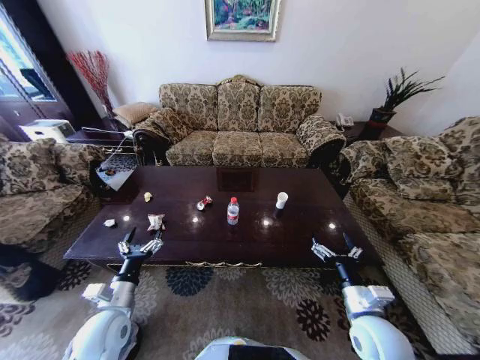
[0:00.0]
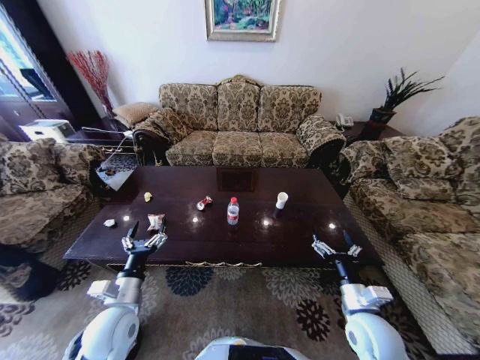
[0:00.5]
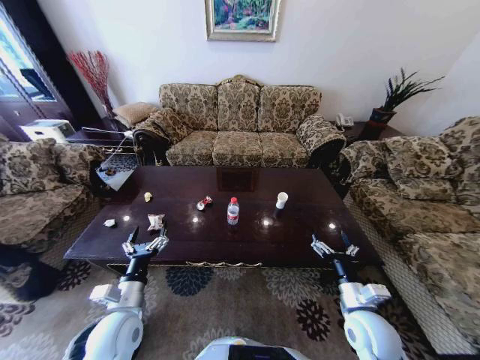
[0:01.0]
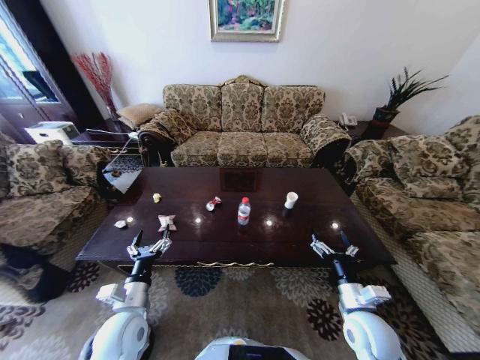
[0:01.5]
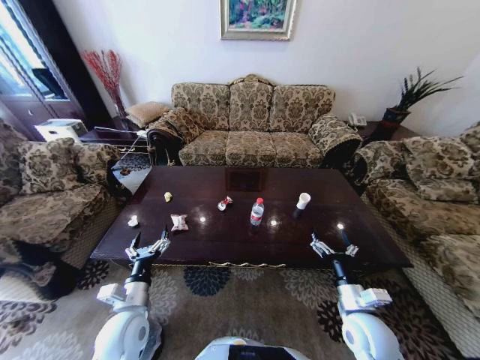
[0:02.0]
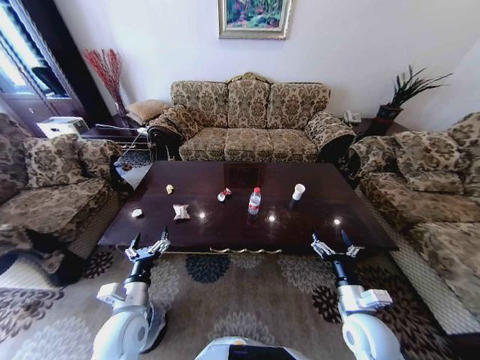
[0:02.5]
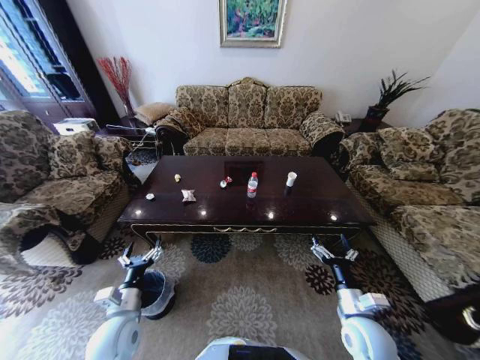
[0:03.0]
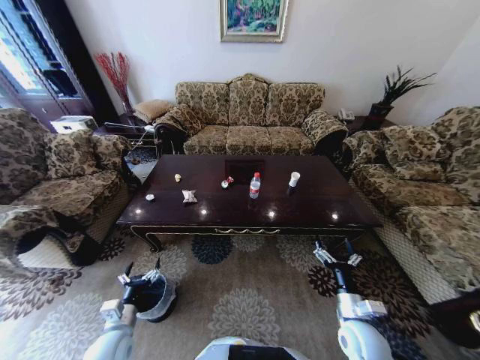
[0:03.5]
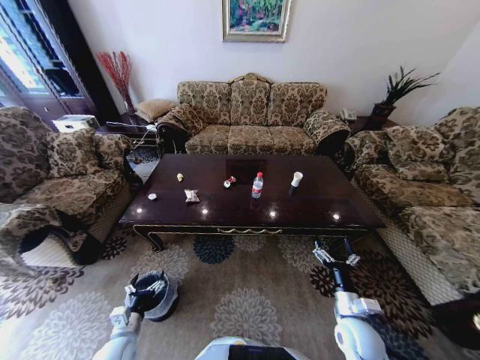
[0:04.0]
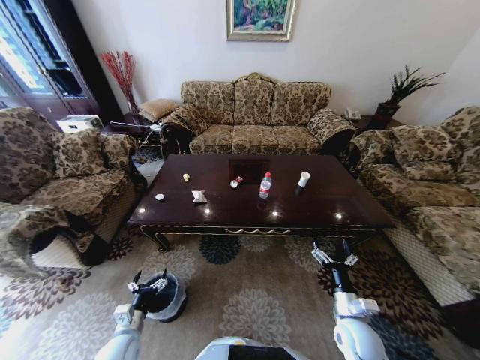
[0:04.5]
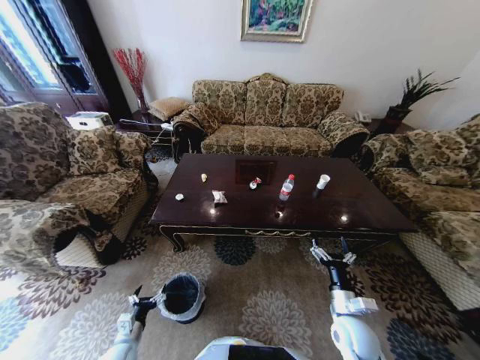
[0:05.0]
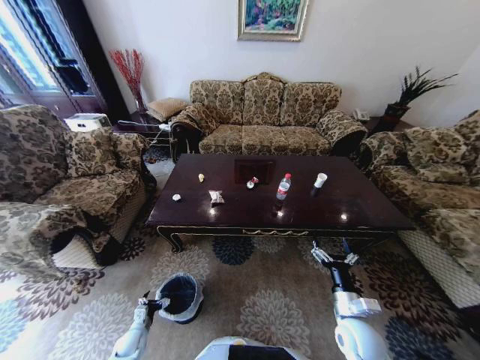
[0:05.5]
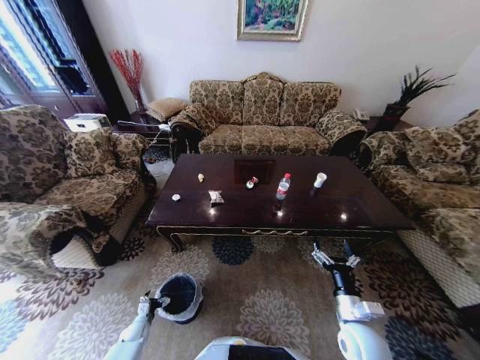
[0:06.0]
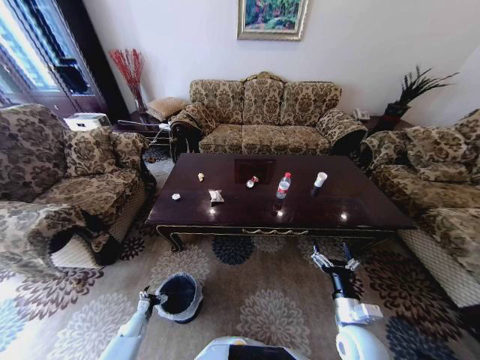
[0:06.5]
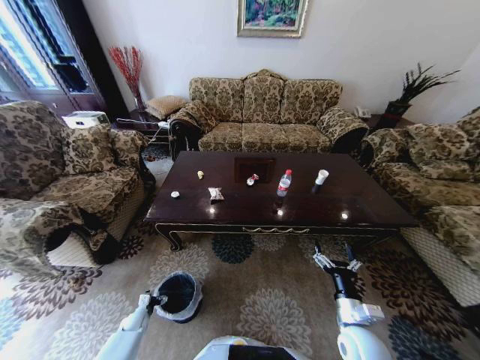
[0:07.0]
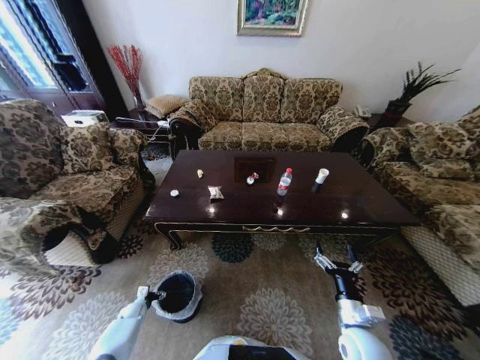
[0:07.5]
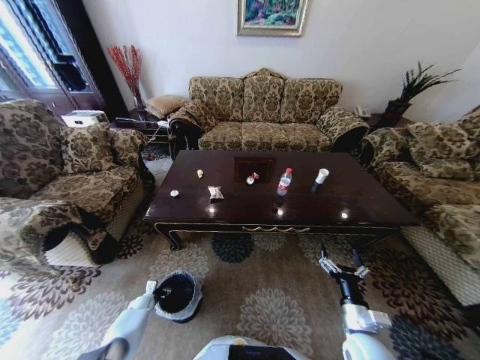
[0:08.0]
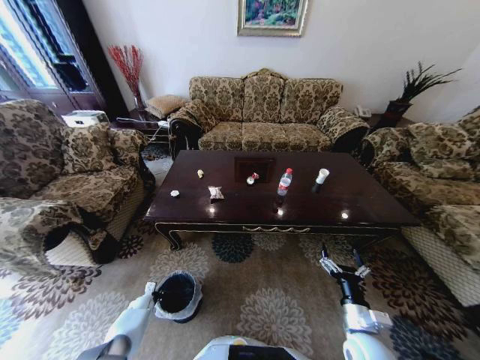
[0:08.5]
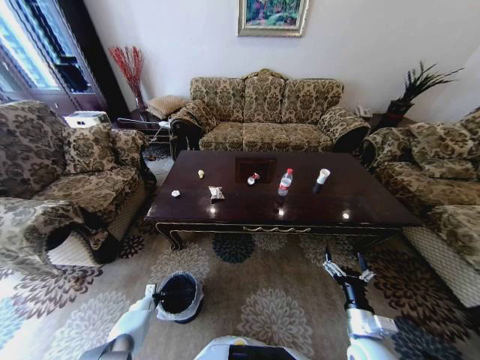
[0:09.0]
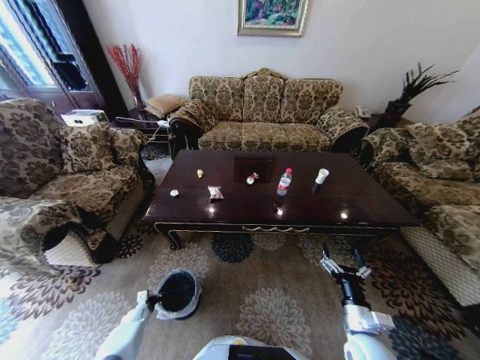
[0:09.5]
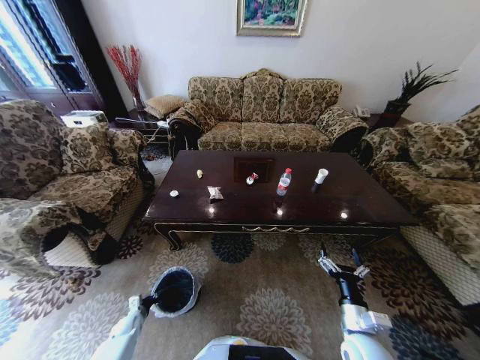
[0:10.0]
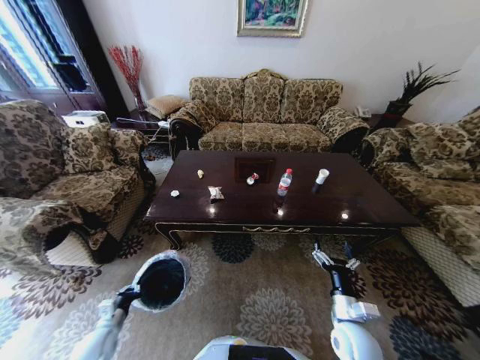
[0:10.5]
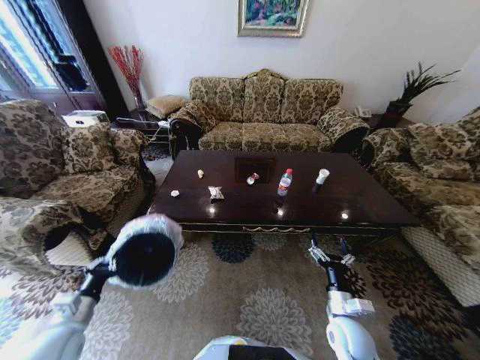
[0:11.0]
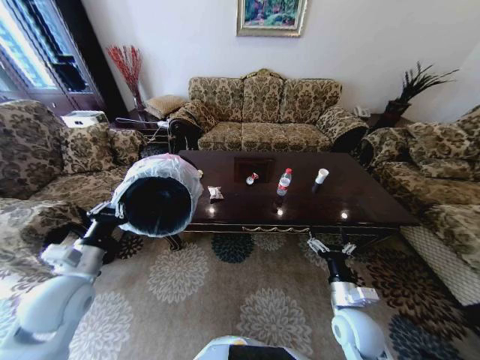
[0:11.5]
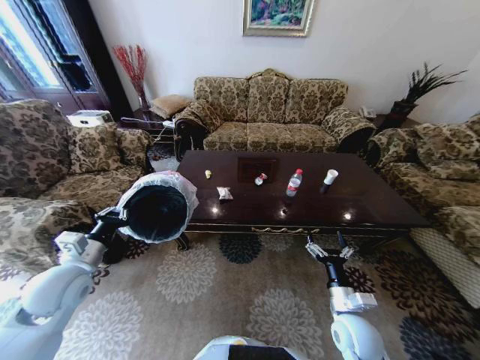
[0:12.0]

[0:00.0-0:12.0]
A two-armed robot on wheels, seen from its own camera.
Task of the whole recording: Move to the front of the table and place the trash on the table into the trash bin.
0:02.0 to 0:04.0: The right gripper travels downward by approximately 5 cm. Meanwhile the left gripper moves downward and to the left, about 15 cm.
0:04.0 to 0:06.0: The left gripper shifts some 20 cm downward.
0:06.0 to 0:08.0: The left gripper is displaced forward by about 10 cm.
0:08.0 to 0:10.0: The left gripper goes approximately 5 cm backward, and closes up.
0:10.0 to 0:12.0: The left gripper goes about 40 cm upward.

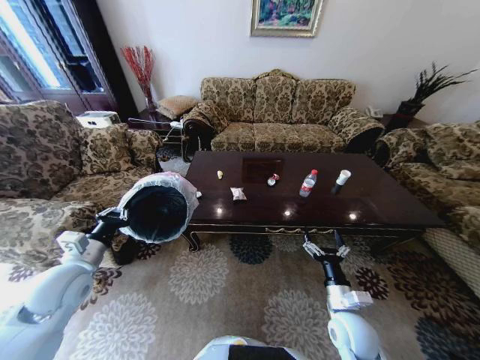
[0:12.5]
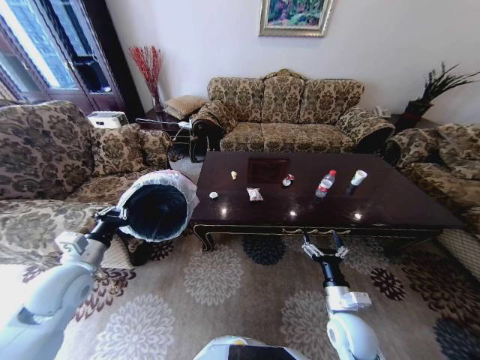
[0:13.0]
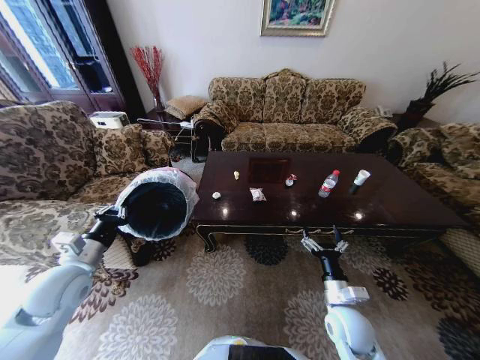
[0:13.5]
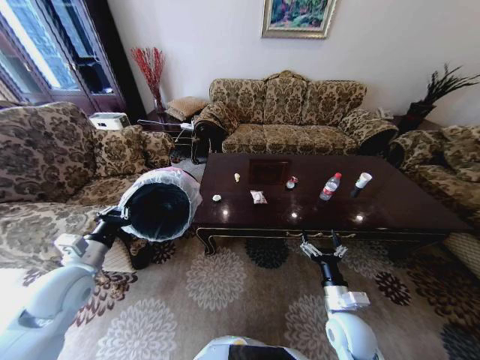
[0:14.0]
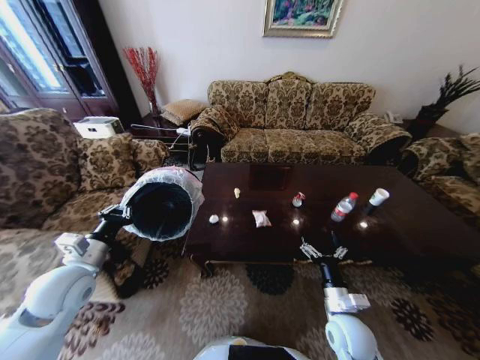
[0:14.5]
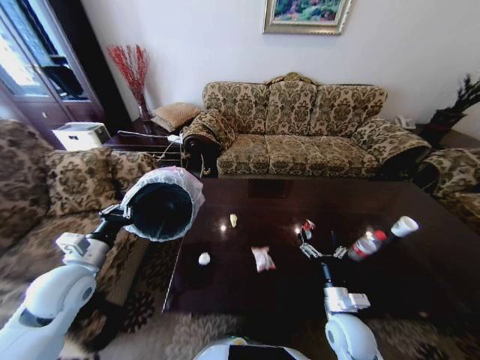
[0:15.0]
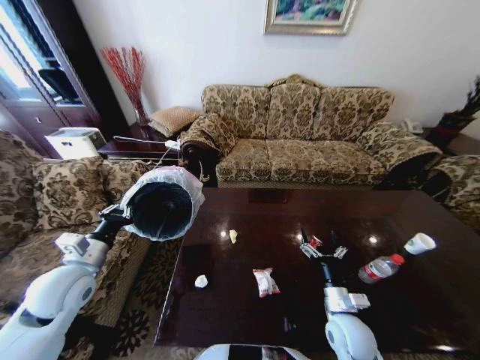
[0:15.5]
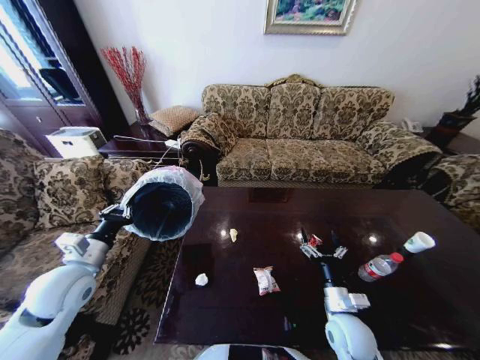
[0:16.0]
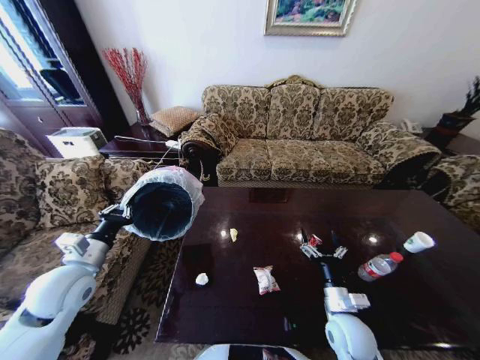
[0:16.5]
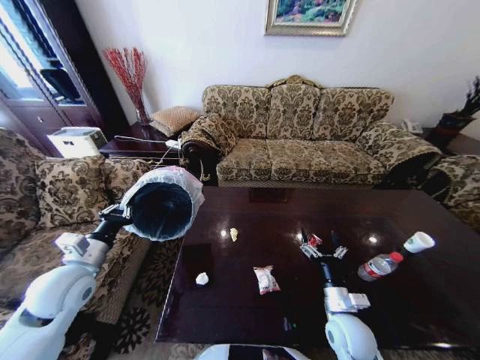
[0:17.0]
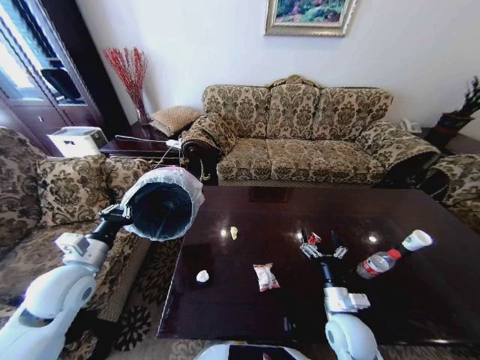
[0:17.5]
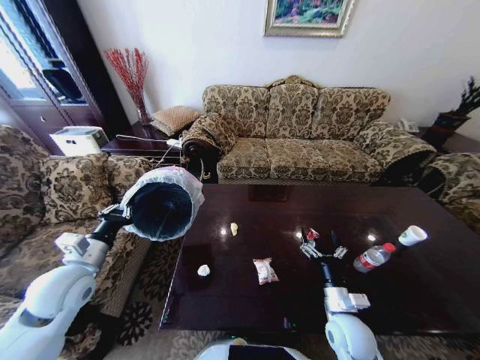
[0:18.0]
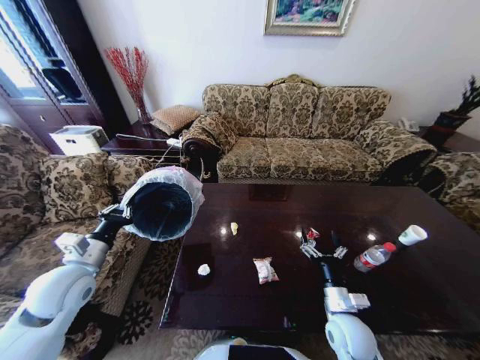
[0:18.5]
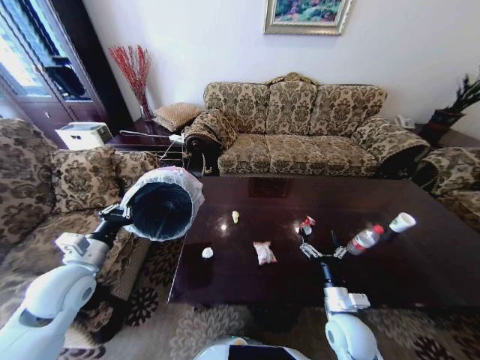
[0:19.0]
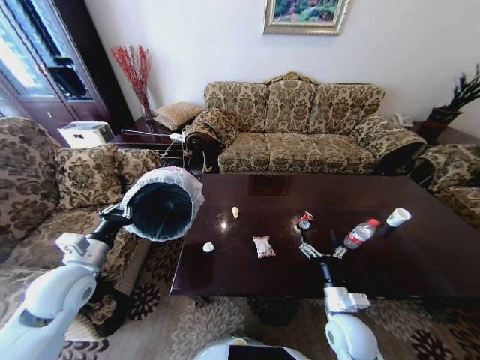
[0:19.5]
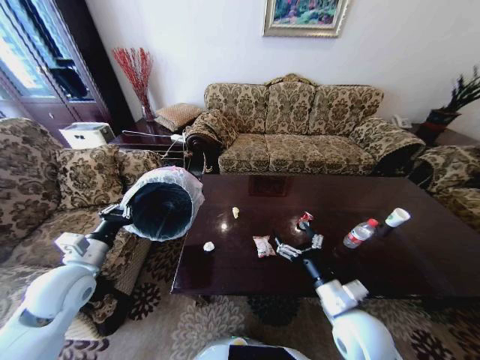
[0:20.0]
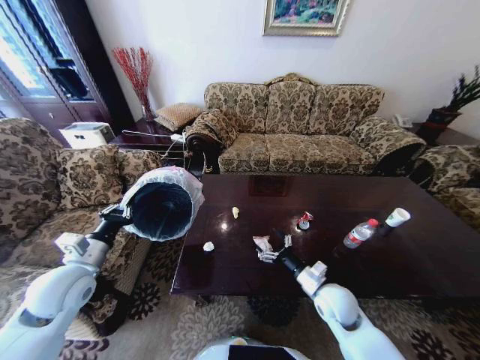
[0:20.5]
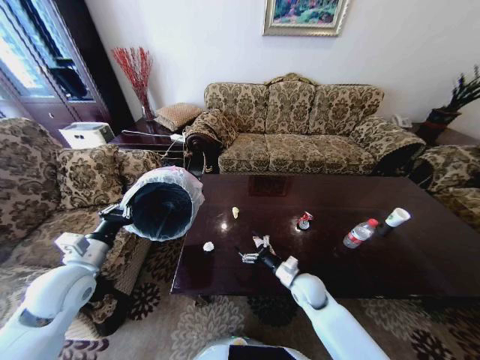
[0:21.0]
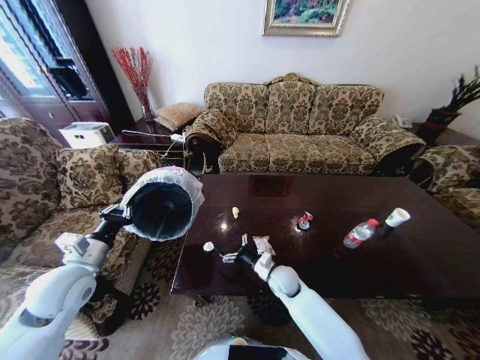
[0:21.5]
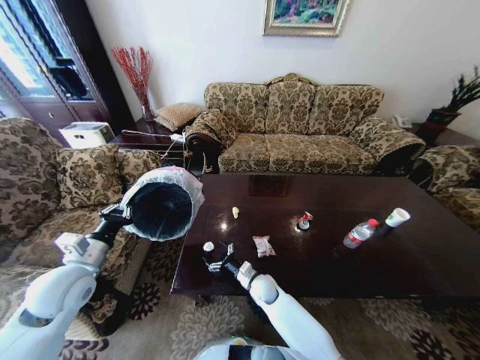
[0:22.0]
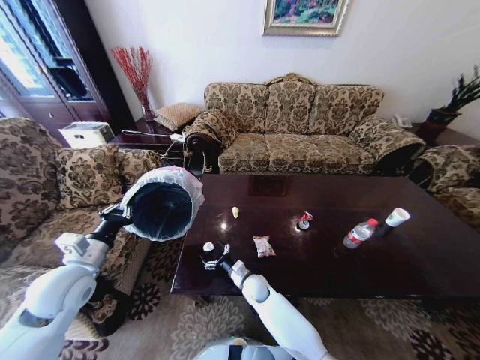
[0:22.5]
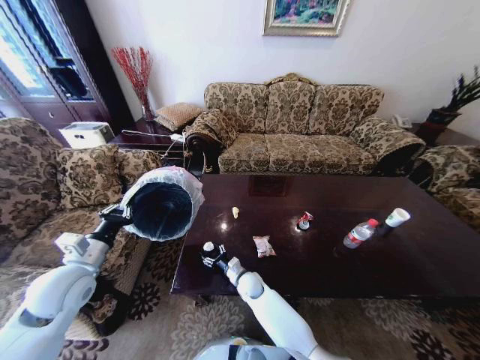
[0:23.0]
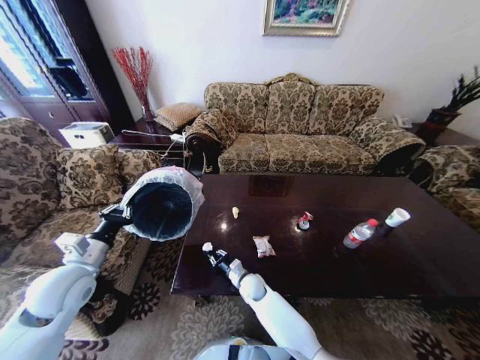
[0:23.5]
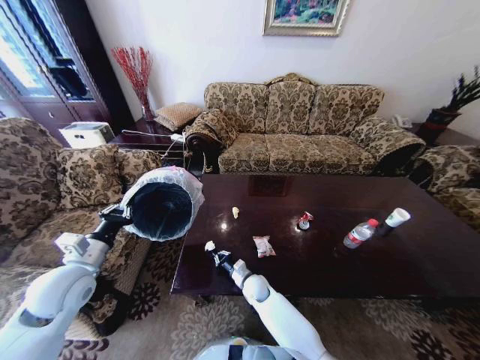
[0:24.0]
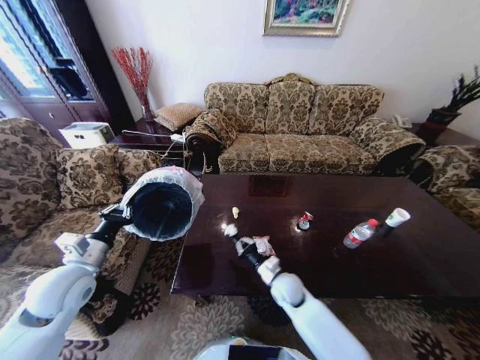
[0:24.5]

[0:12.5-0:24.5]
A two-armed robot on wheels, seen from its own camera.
Task of the whole recording: Move to the front of the table and place the trash on the table into the trash bin.
0:16.5 to 0:18.5: Both grippers stay about where they are.
0:18.5 to 0:20.5: The right gripper goes approximately 5 cm forward, and moves some 10 cm upward and comes back.
0:20.5 to 0:22.5: The right gripper shifts about 25 cm to the left and downward.
0:22.5 to 0:24.5: The right gripper shifts about 15 cm to the right and upward, and closes up.

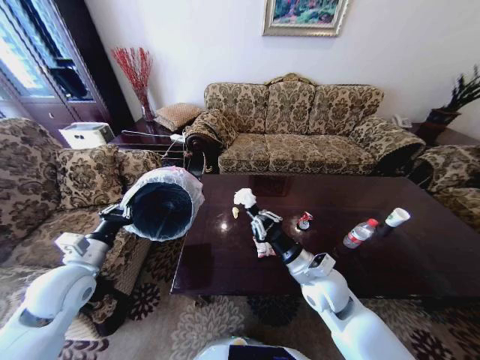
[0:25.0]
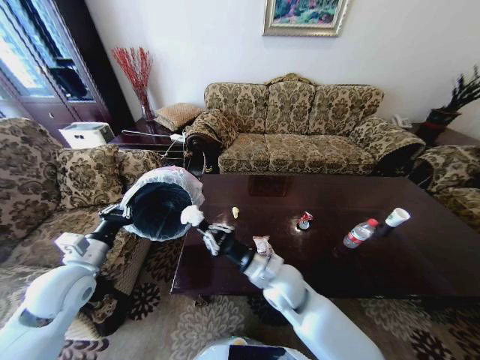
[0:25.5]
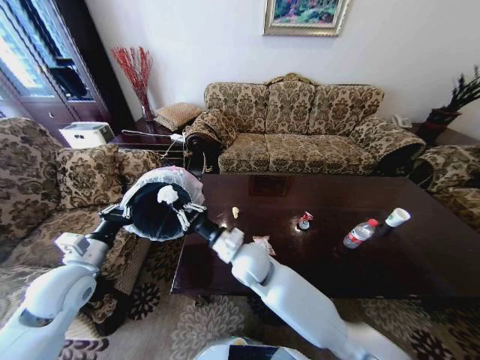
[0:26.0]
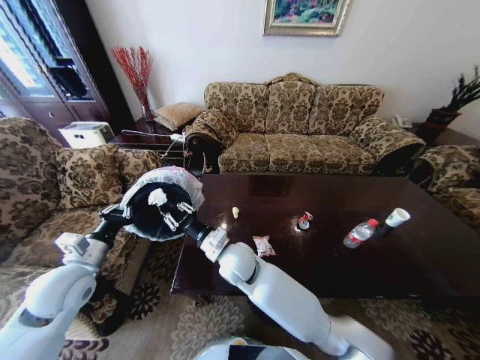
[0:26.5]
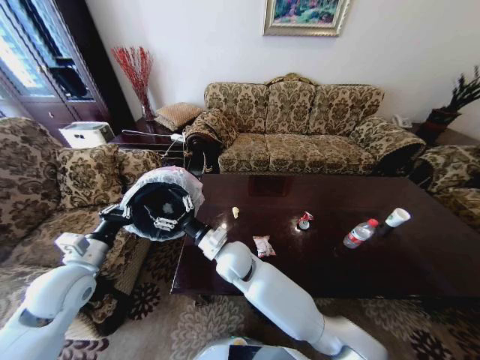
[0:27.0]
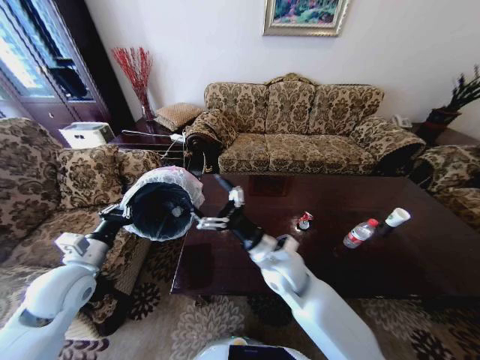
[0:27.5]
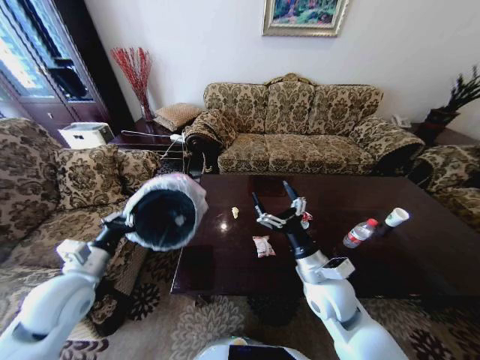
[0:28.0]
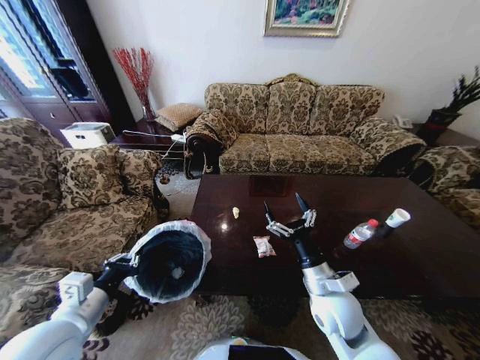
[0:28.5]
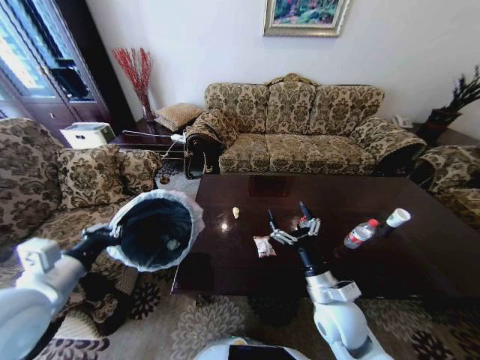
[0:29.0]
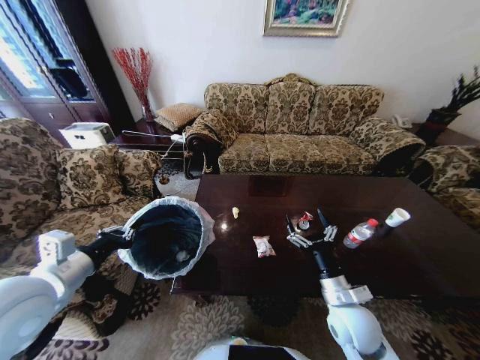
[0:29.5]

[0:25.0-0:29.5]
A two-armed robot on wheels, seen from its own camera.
Task of the whole recording: Move to the front of the table and place the trash on the table into the trash bin.
0:25.0 to 0:27.0: The right gripper shifts some 20 cm to the left, and opens.
0:27.0 to 0:29.5: The right gripper goes roughly 30 cm to the right and backward. The left gripper heads upward and backward, covering roughly 10 cm.
